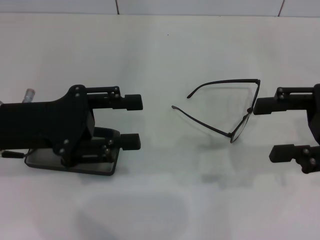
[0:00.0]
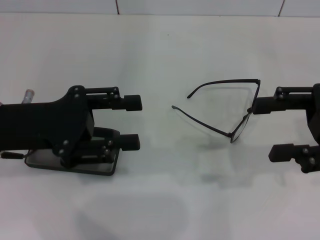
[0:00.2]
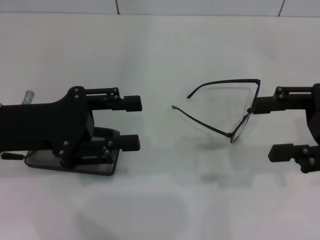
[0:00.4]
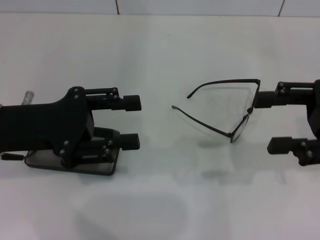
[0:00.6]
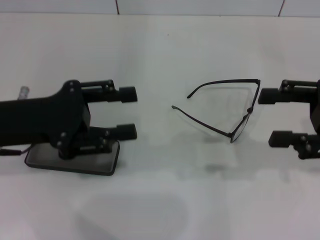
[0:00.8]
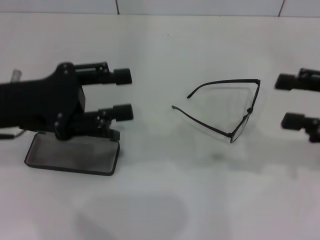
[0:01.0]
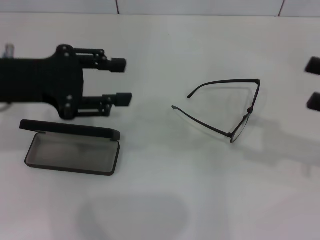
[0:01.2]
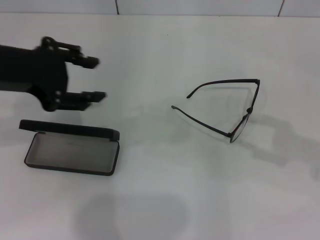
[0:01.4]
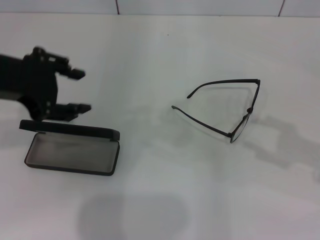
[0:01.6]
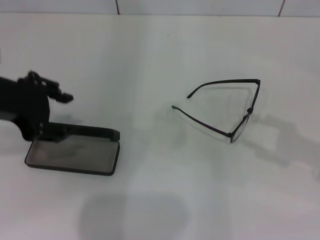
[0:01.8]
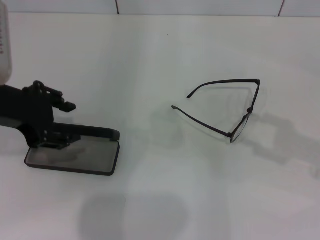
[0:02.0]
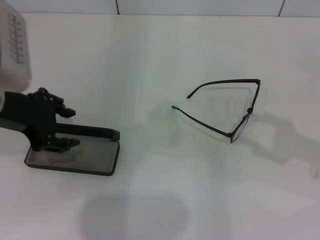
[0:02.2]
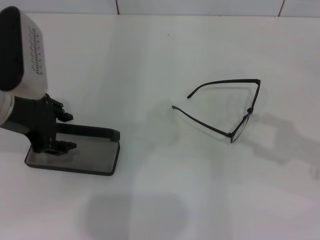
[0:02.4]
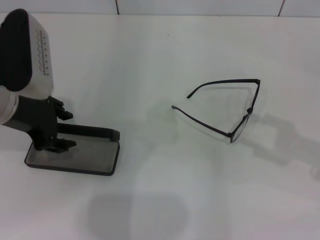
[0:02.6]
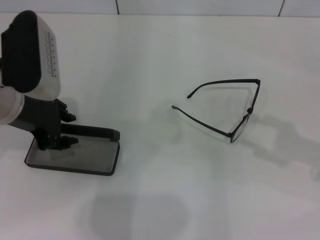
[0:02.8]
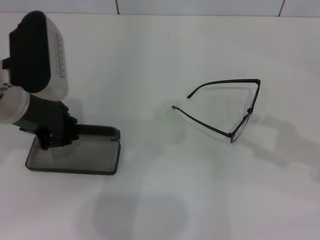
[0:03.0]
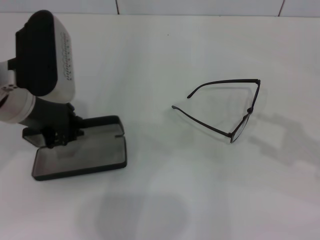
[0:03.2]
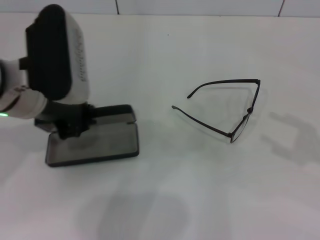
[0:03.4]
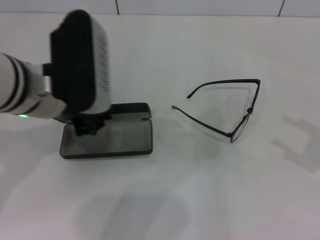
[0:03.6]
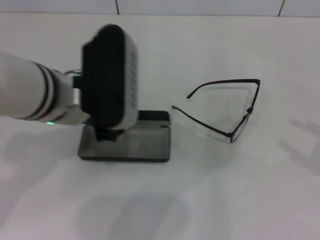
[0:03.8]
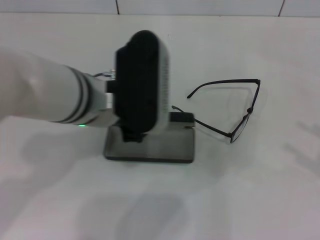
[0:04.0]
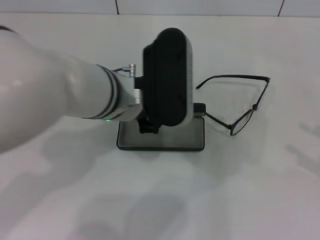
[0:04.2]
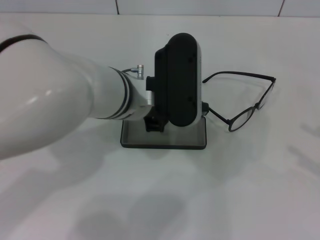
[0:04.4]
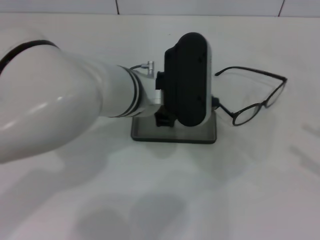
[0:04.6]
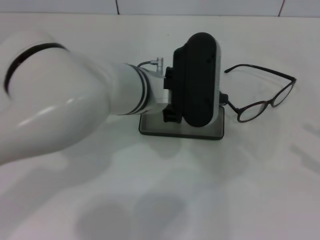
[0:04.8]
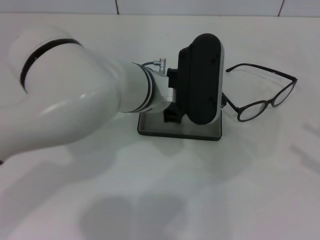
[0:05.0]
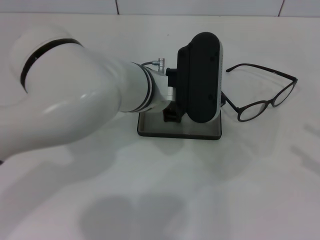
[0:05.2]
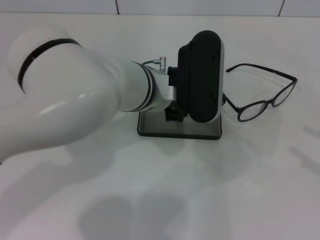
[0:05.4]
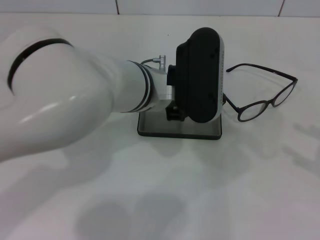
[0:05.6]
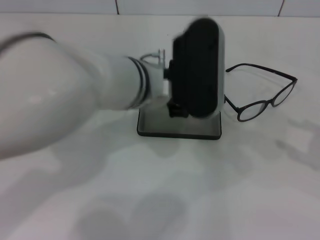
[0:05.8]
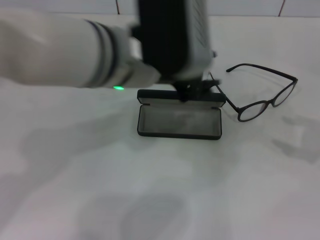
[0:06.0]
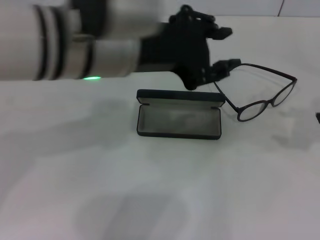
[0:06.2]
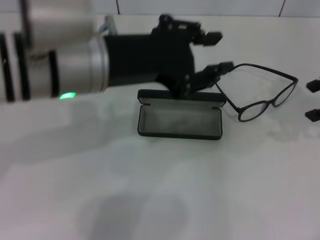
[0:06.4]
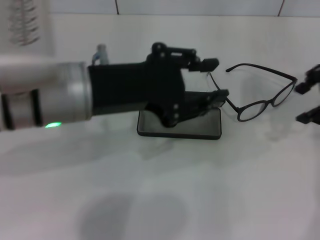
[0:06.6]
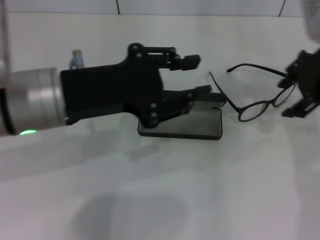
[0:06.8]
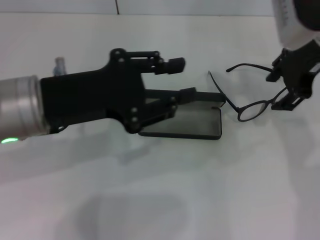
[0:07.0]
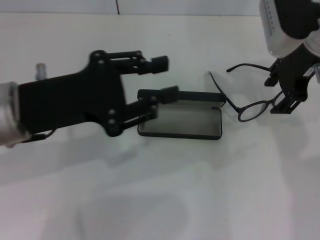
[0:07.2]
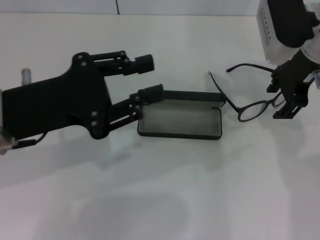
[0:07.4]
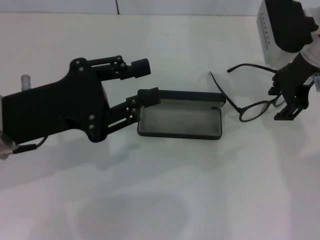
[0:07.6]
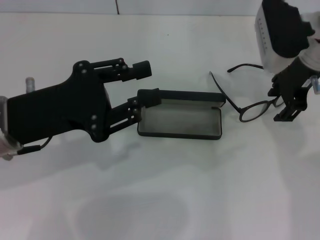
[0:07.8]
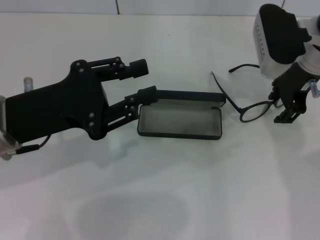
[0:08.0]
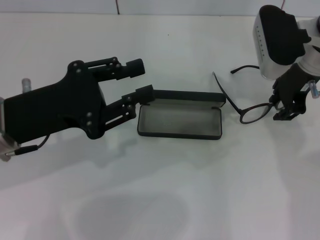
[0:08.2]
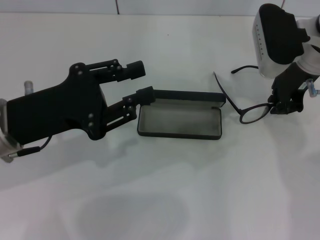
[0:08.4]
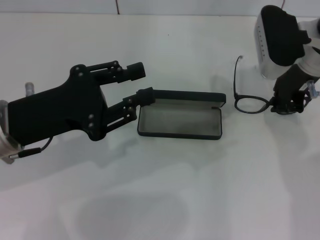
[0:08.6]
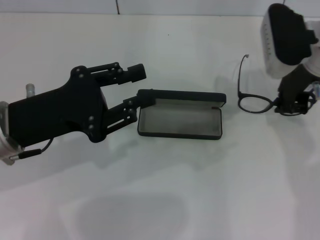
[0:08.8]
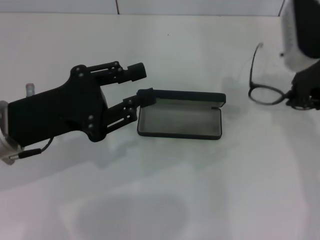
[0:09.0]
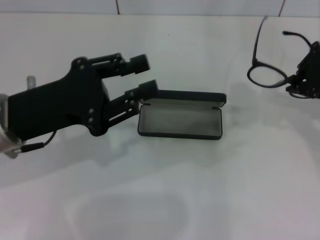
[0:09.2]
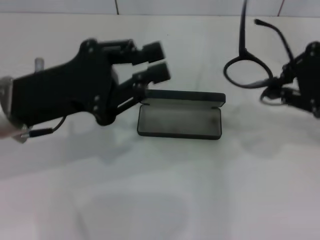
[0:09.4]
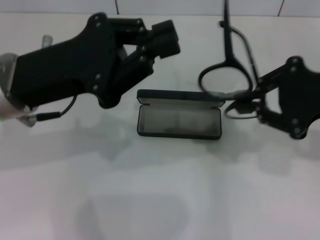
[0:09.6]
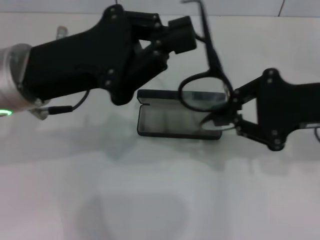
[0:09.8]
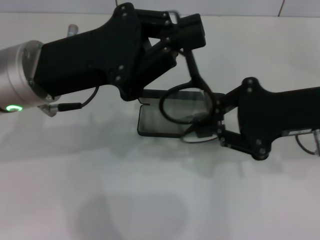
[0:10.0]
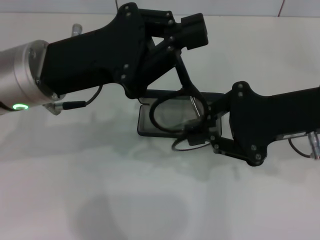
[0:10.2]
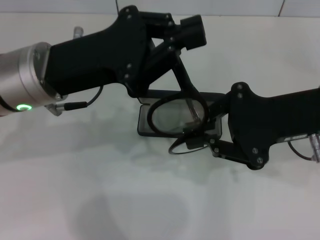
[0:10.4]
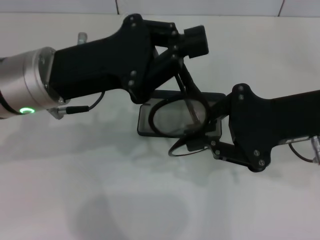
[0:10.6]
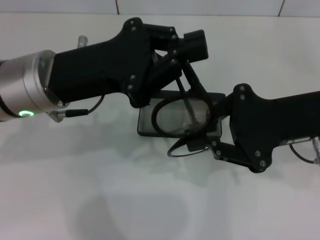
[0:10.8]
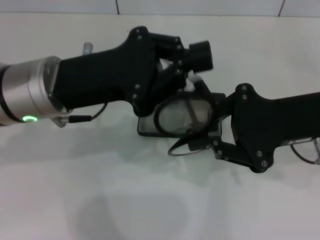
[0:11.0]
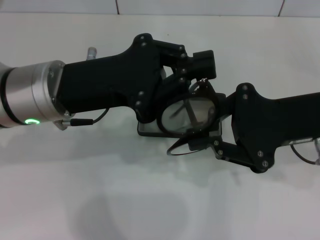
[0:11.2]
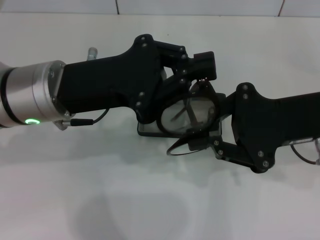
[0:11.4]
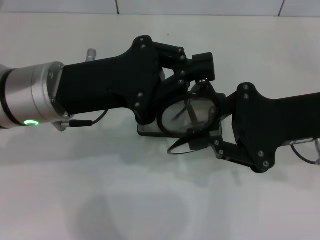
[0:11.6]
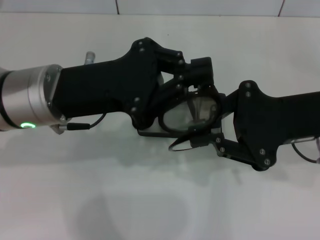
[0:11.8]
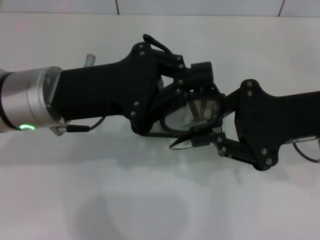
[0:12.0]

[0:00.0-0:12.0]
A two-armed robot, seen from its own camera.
Step, 0:00.0 to 0:03.0: Grab the glasses case with your left hand.
Step, 0:03.2 to 0:05.2: Place the glasses case in the center of the table with your left hand.
Step, 0:05.4 to 0:08.4: Grab the eyeglass frame with your right hand.
0:00.0 to 0:01.6: The left gripper moves upward, about 10 cm, while the right gripper heads to the right, covering roughly 5 cm.
0:01.6 to 0:03.0: The left gripper shifts some 5 cm downward.
0:03.0 to 0:04.4: The right gripper moves backward and to the right, some 10 cm; the left gripper goes about 15 cm to the right, and closes its fingers.
0:04.4 to 0:06.0: The left gripper travels upward by approximately 5 cm, and opens up, while the right gripper is displaced forward by roughly 10 cm.
0:06.0 to 0:07.6: The right gripper is displaced to the left and forward by some 25 cm. The left gripper heads to the left and downward, covering some 15 cm.
0:07.6 to 0:09.0: The right gripper closes.
0:09.0 to 0:10.4: The left gripper shifts about 5 cm to the right, and closes its fingers; the right gripper moves backward, approximately 10 cm.

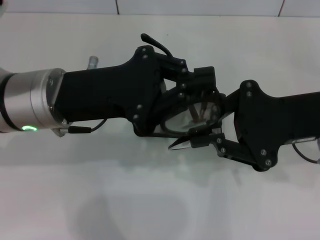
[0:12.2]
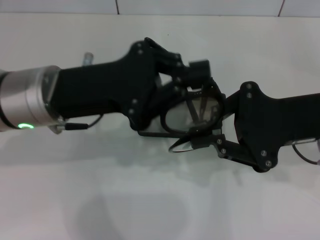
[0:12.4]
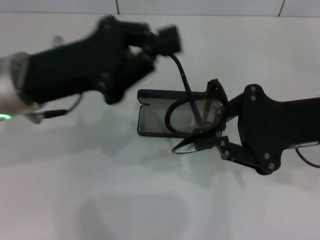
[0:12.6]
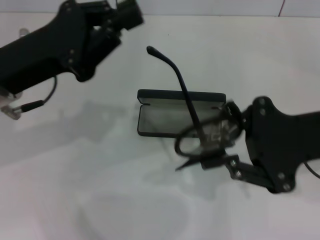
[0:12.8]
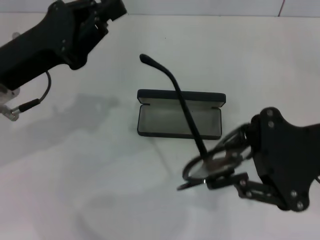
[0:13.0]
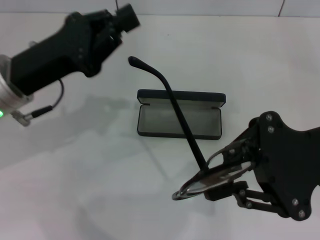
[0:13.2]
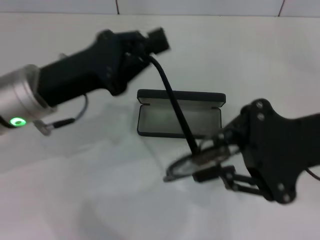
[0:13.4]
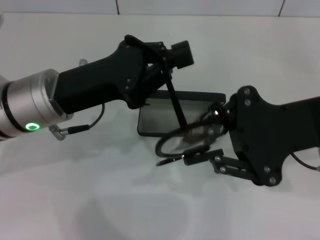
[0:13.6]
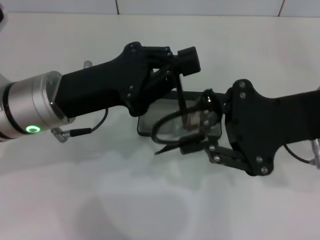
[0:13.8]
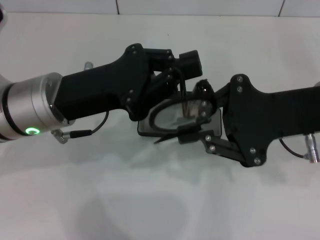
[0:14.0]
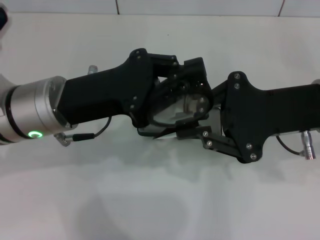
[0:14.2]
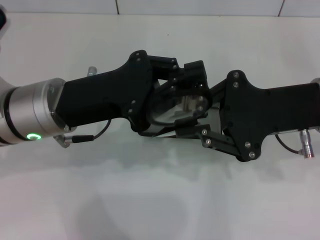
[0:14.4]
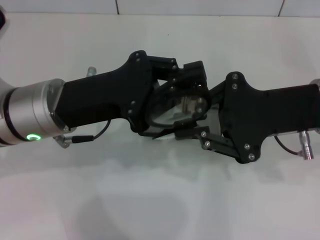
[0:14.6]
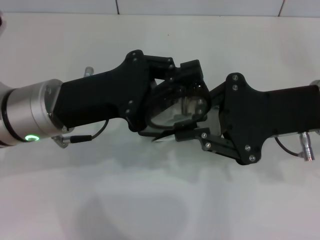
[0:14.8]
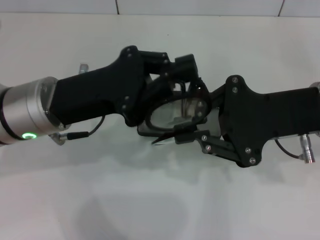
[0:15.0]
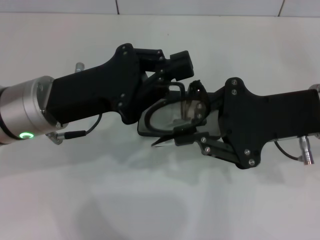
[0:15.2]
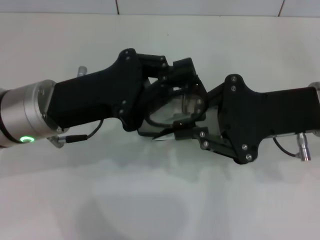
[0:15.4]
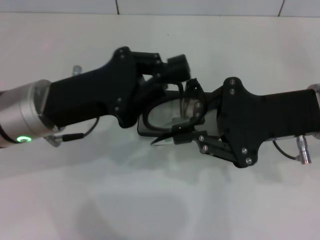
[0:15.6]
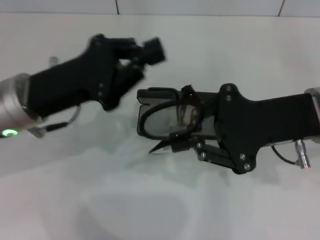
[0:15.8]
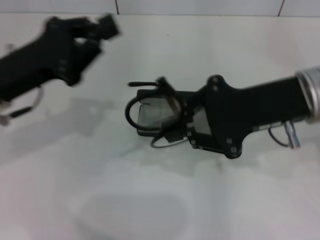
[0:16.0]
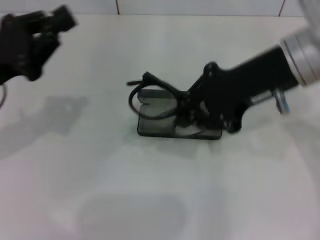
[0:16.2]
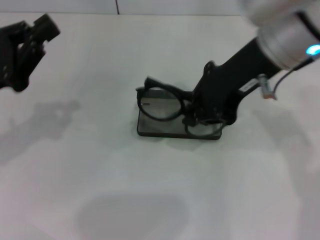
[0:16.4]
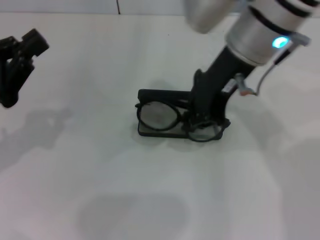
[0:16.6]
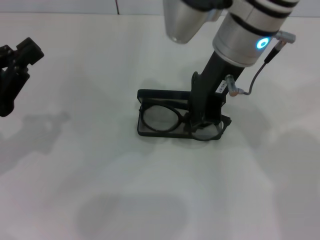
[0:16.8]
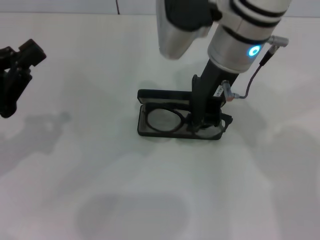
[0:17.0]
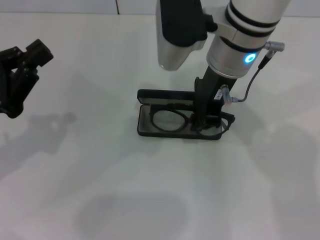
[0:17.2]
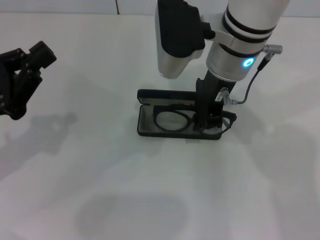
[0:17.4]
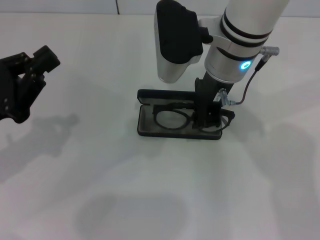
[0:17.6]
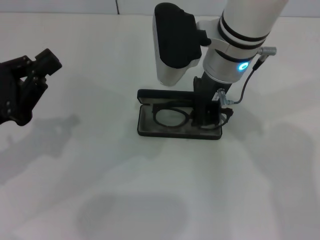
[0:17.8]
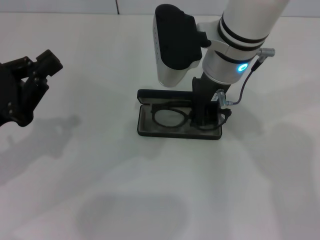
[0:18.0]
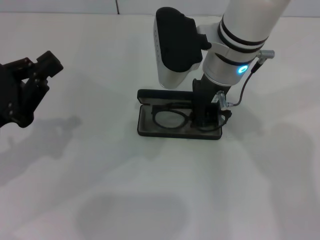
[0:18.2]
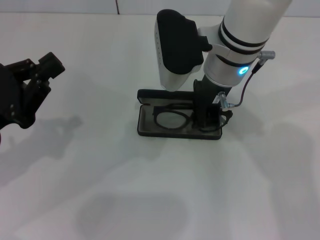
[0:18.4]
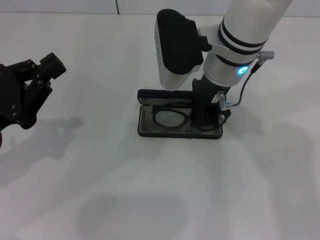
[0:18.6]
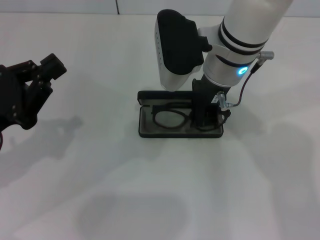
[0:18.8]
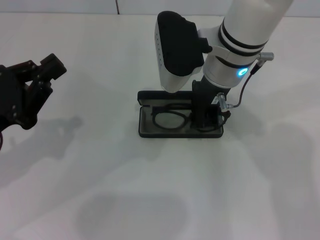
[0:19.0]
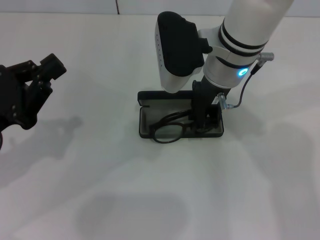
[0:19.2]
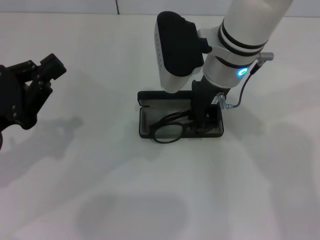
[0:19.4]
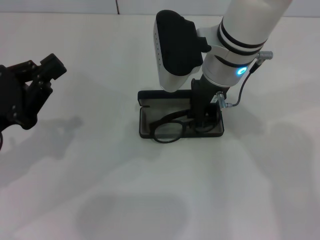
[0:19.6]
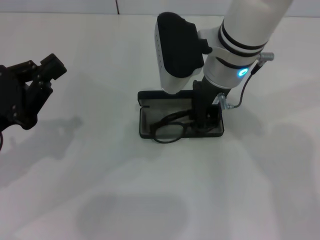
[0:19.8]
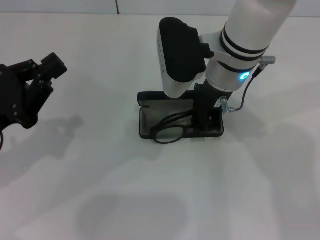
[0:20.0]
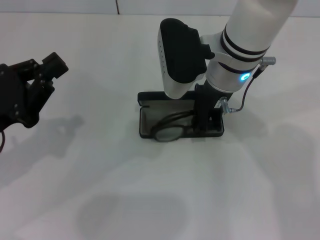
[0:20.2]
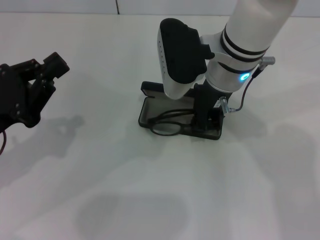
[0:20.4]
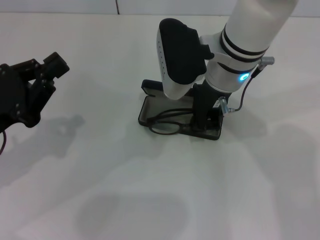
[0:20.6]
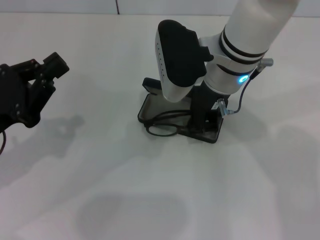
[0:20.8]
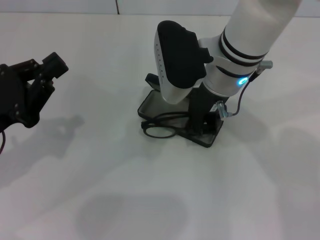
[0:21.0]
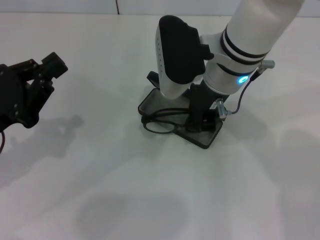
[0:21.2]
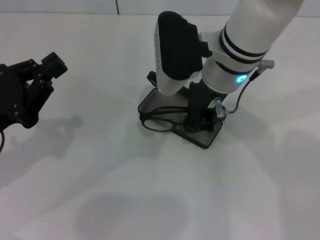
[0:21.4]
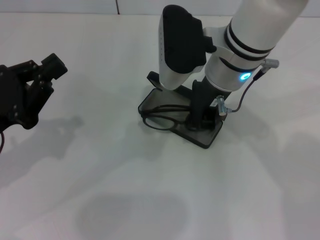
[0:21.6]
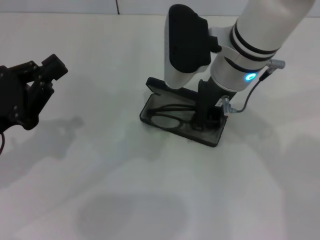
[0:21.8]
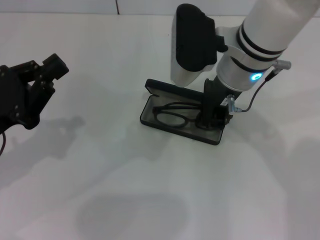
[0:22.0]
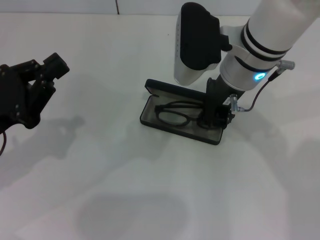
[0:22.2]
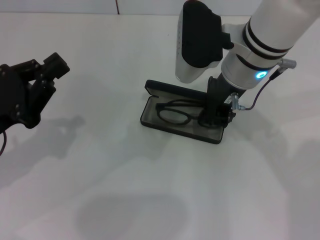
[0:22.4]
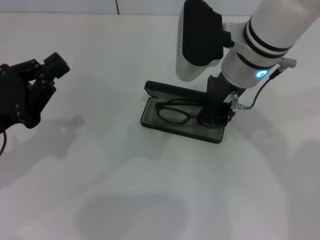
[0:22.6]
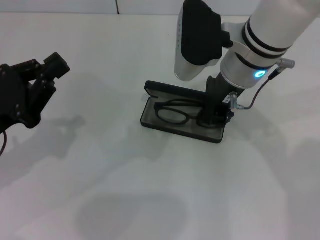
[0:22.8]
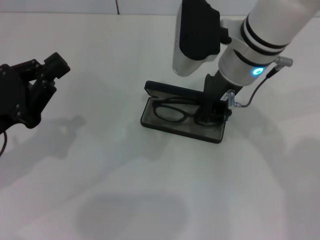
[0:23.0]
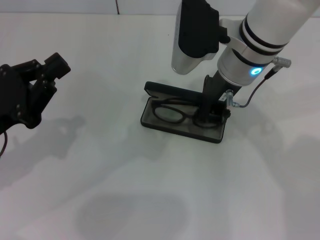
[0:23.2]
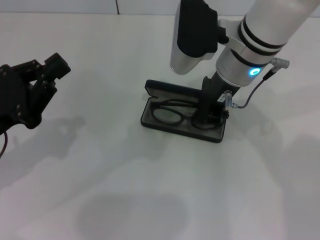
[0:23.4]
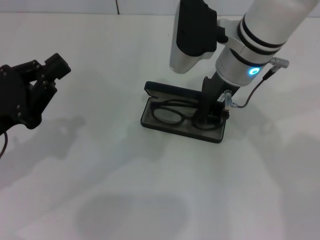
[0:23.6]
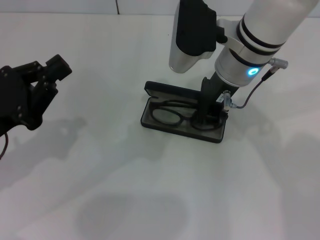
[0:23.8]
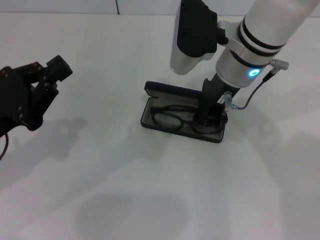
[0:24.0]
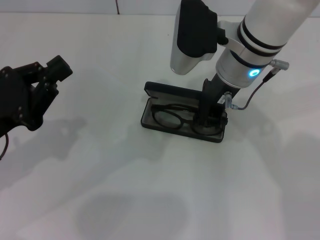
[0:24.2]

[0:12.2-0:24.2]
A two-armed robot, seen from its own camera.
Step, 0:12.2 to 0:14.8: Fold the frame with your left hand.
0:13.8 to 0:15.2: The two grippers keep their place.
0:15.2 to 0:16.6: The right gripper heads to the left, upward and forward, covering roughly 15 cm, while the left gripper heads to the left, covering roughly 10 cm.
0:16.6 to 0:18.2: The right gripper travels downward by approximately 5 cm.
0:18.2 to 0:21.2: Both grippers stay put.
0:21.2 to 0:24.2: The grippers make only small movements.
